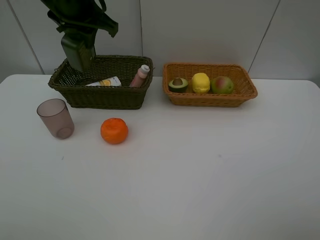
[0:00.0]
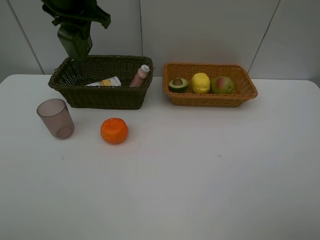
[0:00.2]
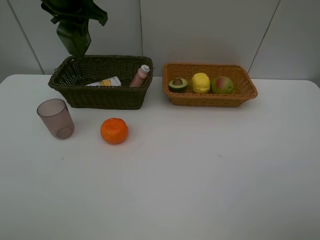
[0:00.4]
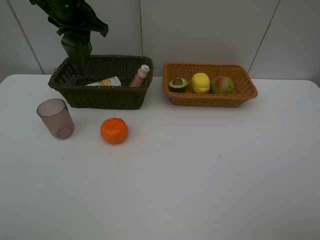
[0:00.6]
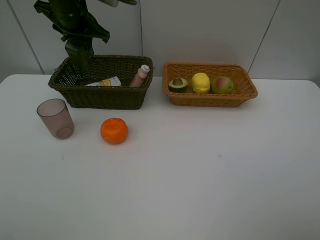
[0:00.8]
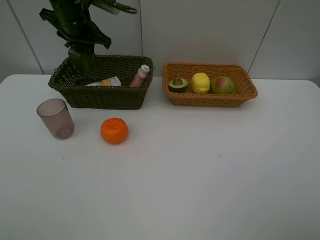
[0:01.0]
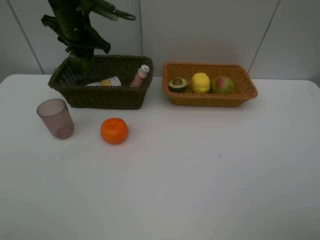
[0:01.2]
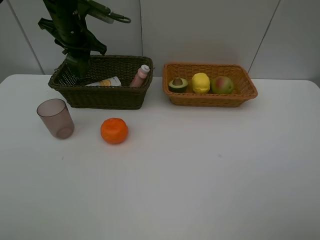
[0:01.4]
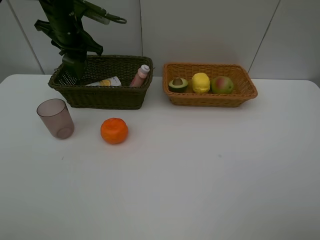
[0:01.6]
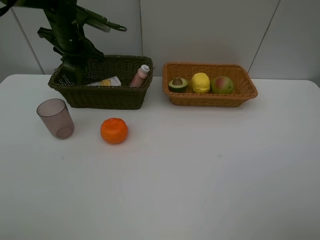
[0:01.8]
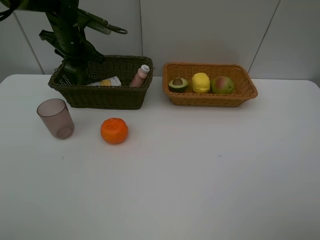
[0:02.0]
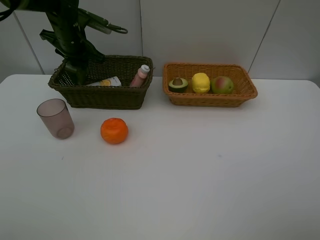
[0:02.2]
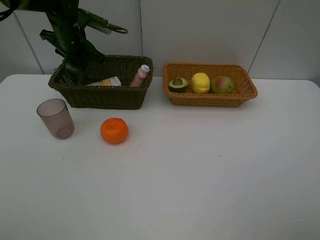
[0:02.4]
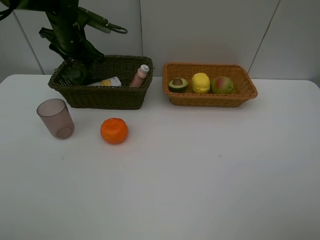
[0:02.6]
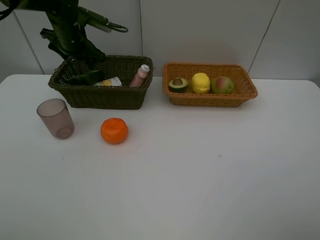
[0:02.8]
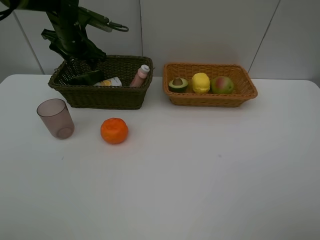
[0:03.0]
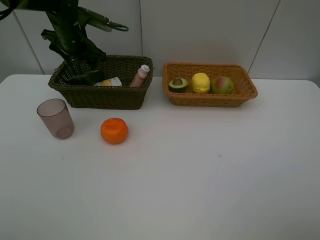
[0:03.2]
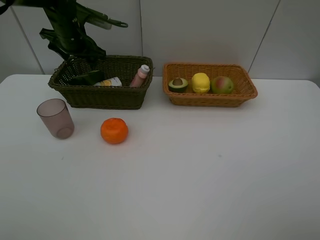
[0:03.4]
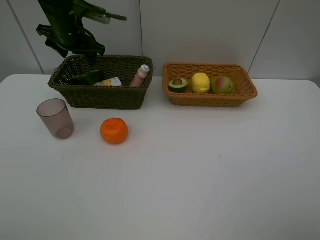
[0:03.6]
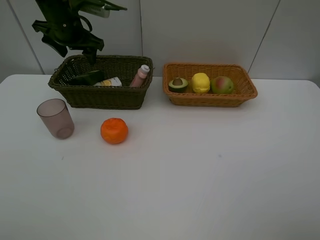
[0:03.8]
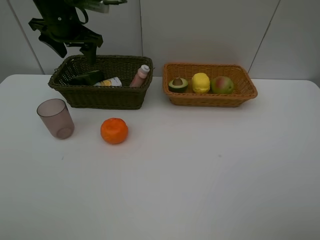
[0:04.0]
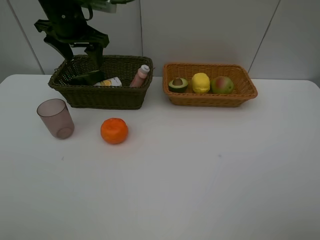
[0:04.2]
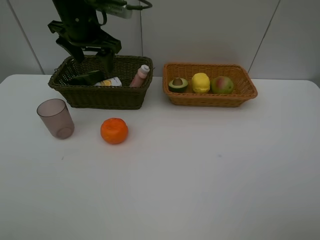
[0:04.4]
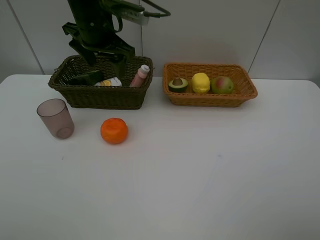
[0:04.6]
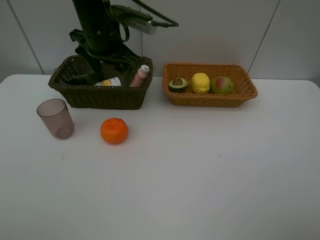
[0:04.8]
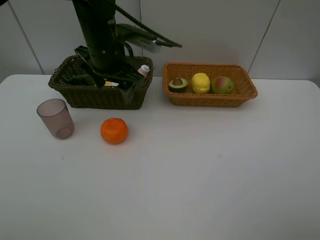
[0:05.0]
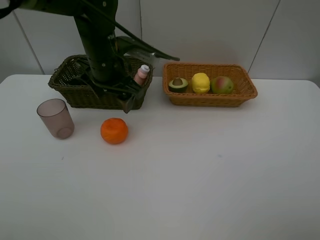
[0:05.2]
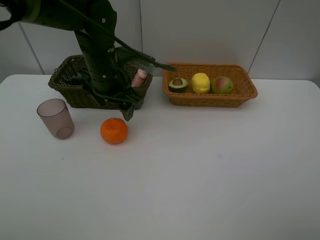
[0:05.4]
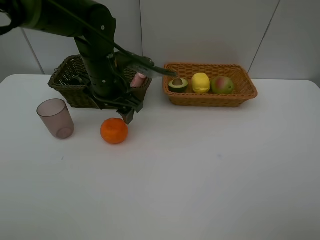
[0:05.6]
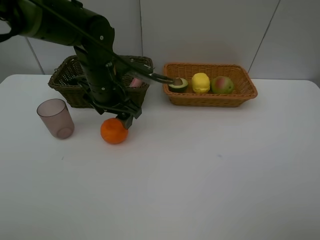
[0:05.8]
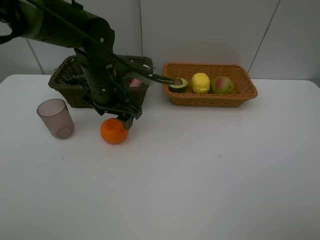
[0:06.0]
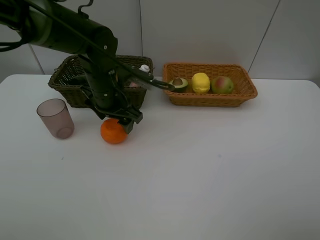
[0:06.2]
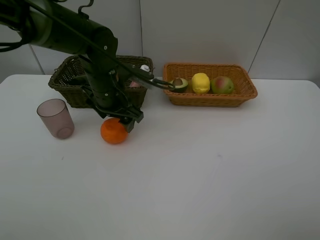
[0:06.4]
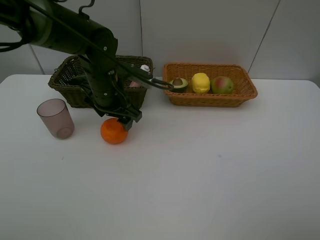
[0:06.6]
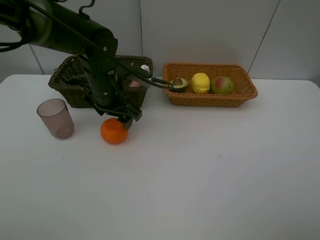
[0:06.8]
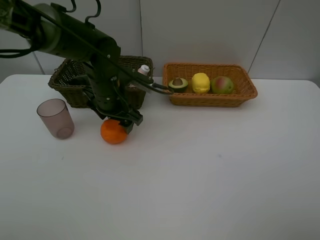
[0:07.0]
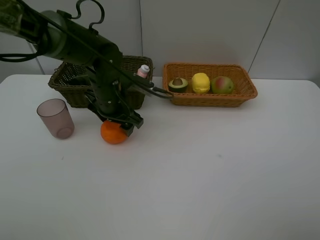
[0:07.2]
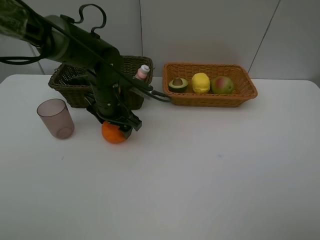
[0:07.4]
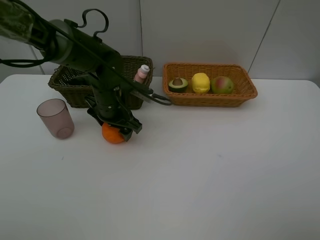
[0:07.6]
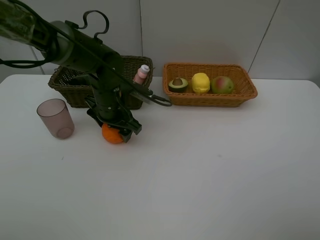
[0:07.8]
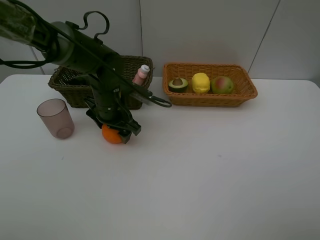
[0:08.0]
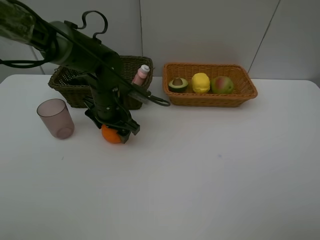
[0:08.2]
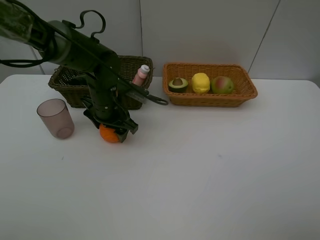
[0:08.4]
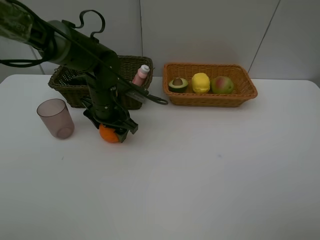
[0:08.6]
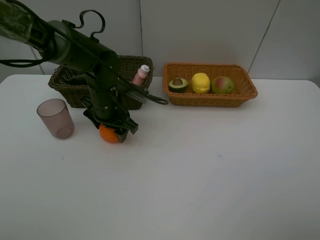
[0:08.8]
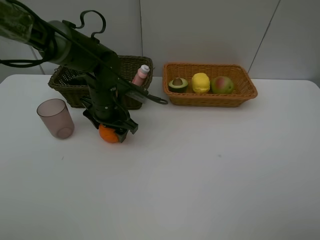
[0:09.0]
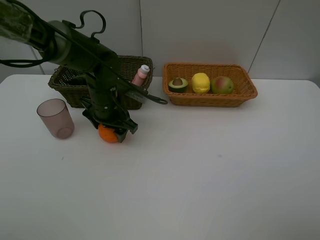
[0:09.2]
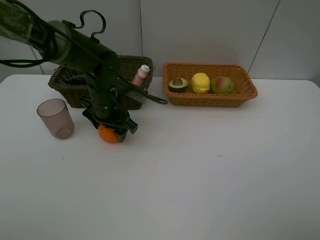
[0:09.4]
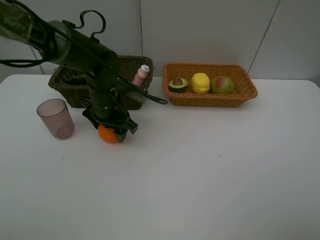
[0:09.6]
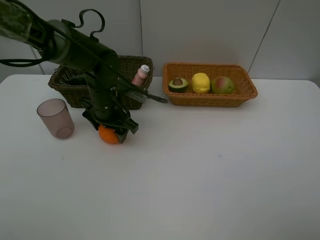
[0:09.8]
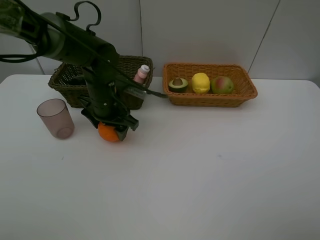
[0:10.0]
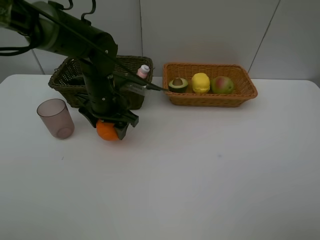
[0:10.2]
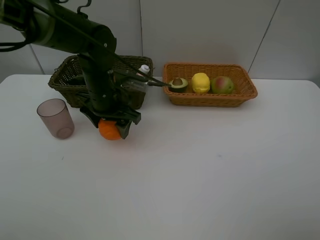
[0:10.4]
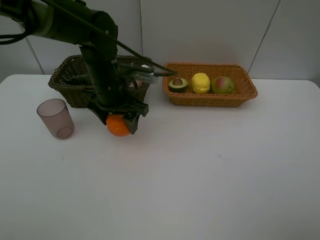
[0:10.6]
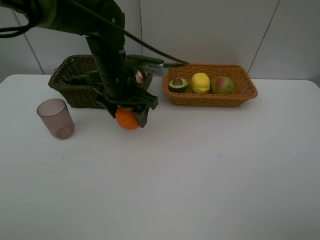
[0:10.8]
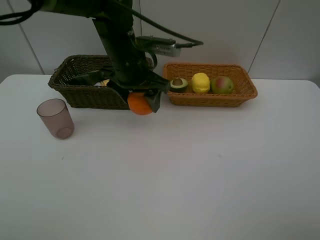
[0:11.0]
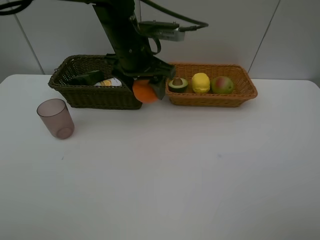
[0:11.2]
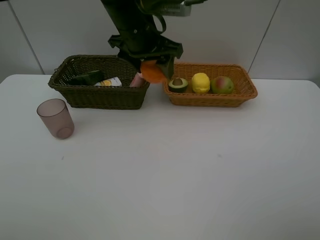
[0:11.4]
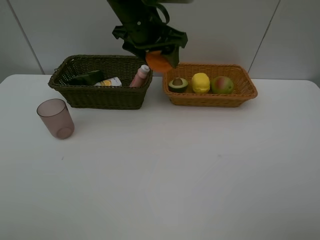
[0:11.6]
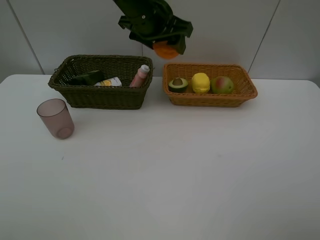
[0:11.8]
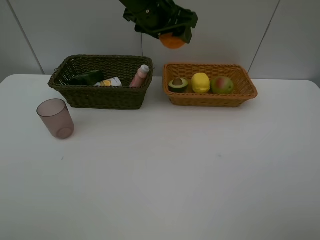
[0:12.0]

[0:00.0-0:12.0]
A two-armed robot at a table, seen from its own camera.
Task of the whole recording: Place multiple objects separately in different baskets.
Step, 0:03.2 to 0:10.0: Pick up the orange with left gripper.
0:00.0 to 0:01.6: The left gripper is displaced downward, forward and to the left by about 15 cm.
0:01.6 to 0:03.0: The left gripper opens its fingers.
0:03.0 to 0:04.4: The left gripper goes approximately 10 cm backward, upward and to the right.
0:04.4 to 0:06.0: The left gripper goes roughly 10 cm downward and backward.
0:06.0 to 0:07.6: The left gripper is displaced downward by about 5 cm.
0:07.6 to 0:09.0: The two grippers keep their place.
0:09.0 to 0:10.4: The grippers stay close to where they were, moving slightly.
0:10.4 to 0:12.0: The left gripper is displaced upward, to the right and forward by approximately 15 cm.

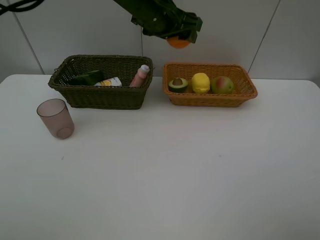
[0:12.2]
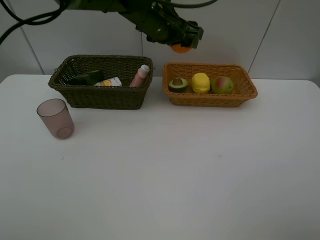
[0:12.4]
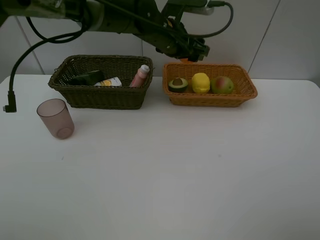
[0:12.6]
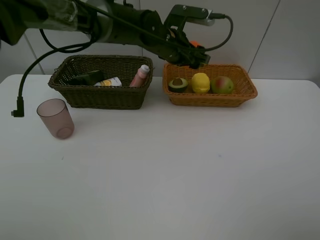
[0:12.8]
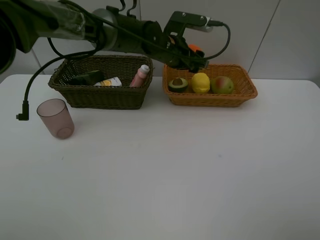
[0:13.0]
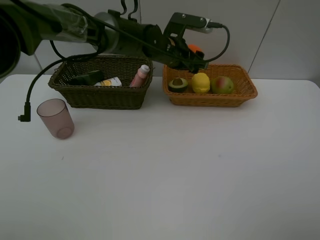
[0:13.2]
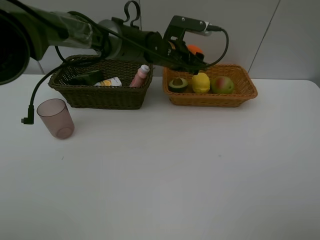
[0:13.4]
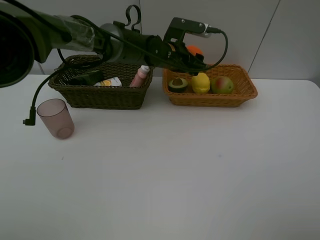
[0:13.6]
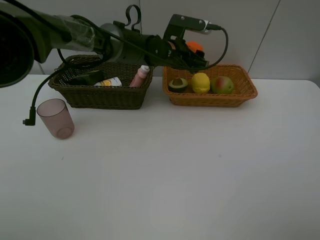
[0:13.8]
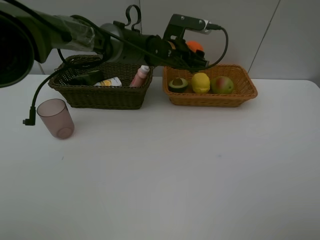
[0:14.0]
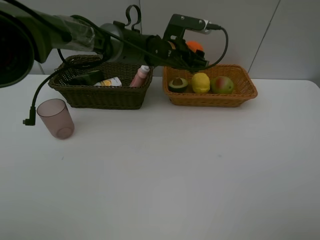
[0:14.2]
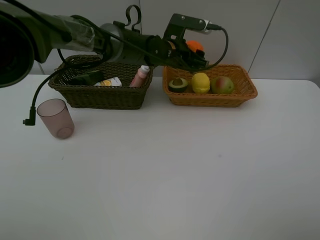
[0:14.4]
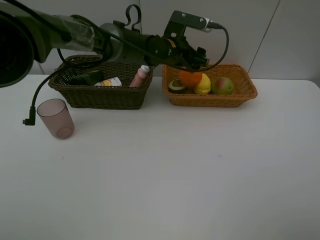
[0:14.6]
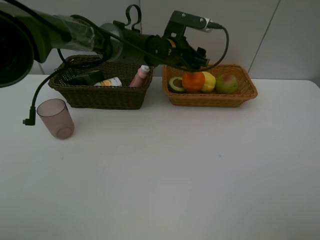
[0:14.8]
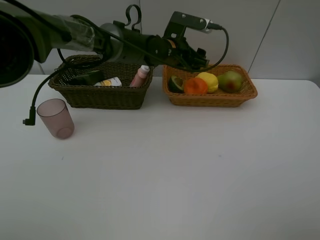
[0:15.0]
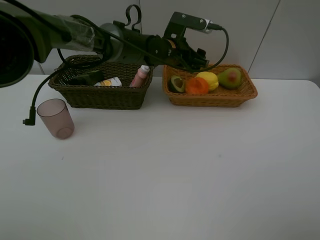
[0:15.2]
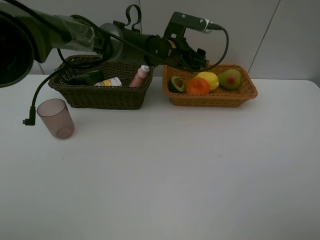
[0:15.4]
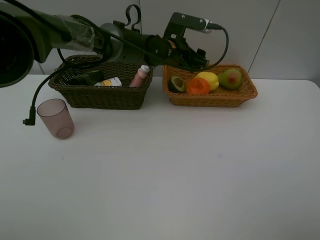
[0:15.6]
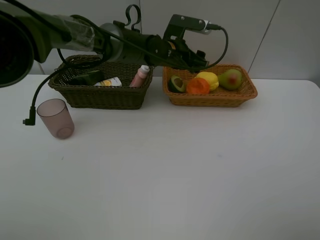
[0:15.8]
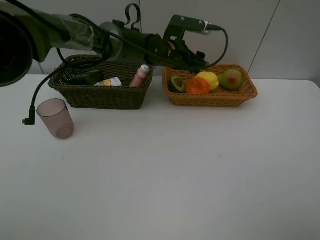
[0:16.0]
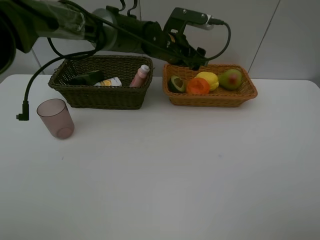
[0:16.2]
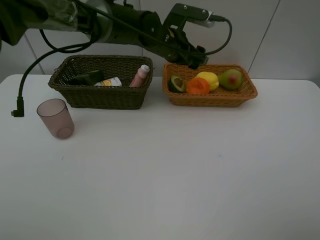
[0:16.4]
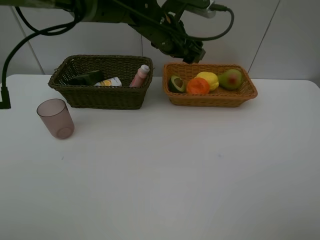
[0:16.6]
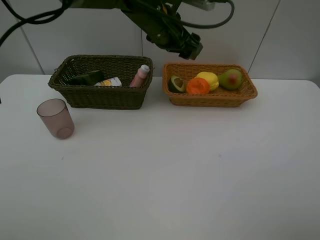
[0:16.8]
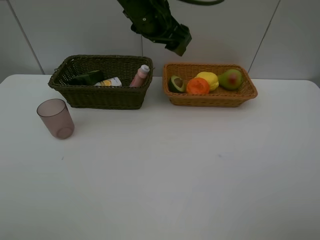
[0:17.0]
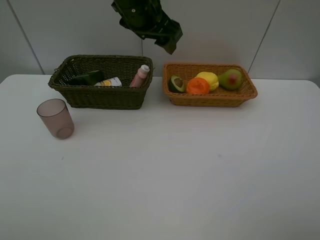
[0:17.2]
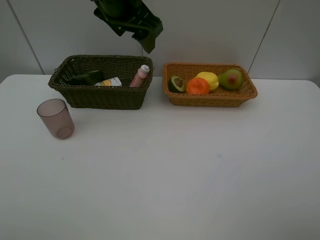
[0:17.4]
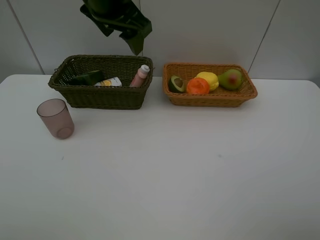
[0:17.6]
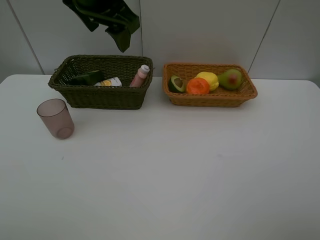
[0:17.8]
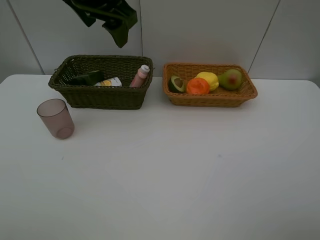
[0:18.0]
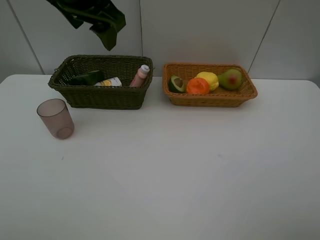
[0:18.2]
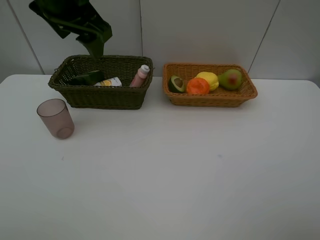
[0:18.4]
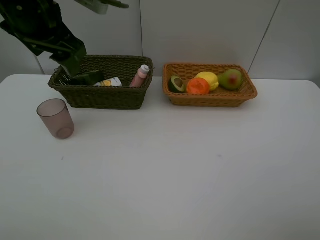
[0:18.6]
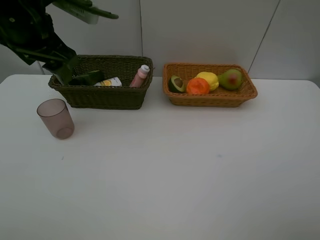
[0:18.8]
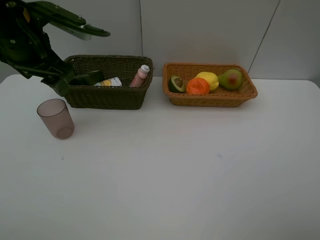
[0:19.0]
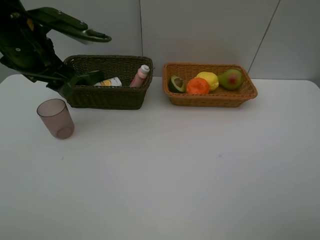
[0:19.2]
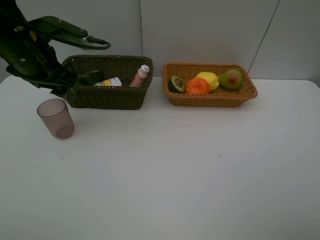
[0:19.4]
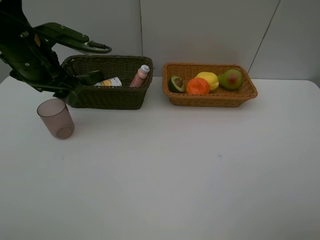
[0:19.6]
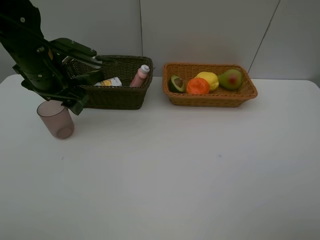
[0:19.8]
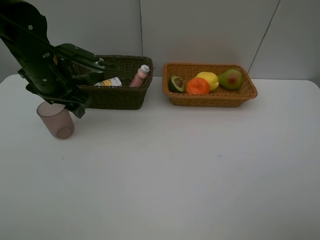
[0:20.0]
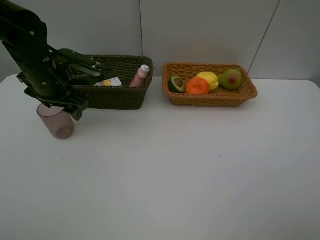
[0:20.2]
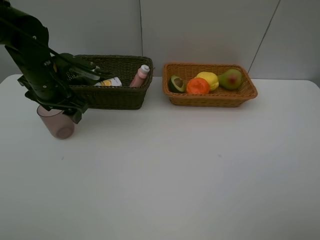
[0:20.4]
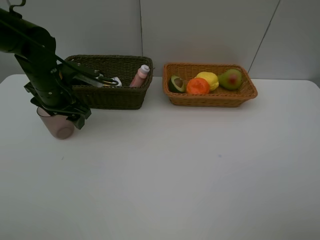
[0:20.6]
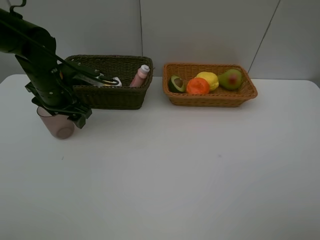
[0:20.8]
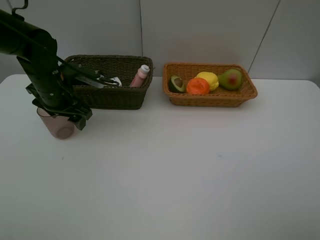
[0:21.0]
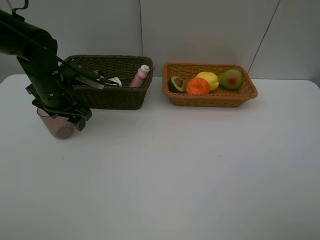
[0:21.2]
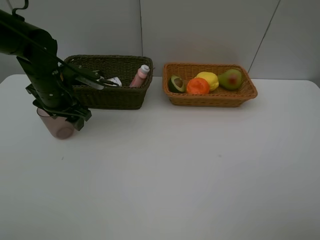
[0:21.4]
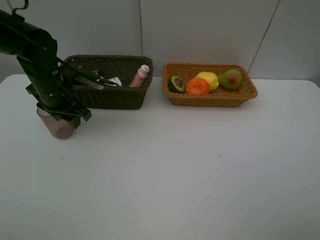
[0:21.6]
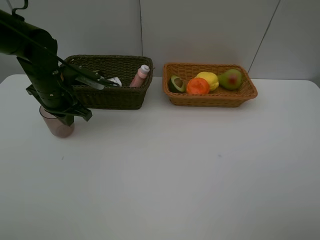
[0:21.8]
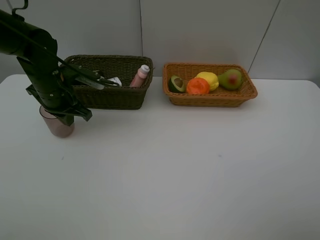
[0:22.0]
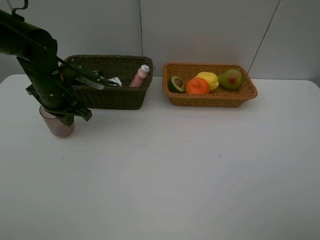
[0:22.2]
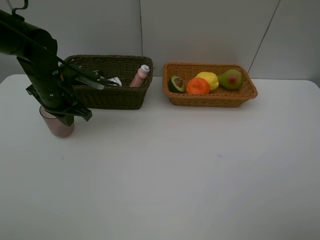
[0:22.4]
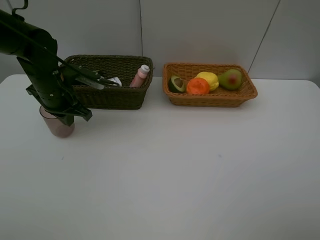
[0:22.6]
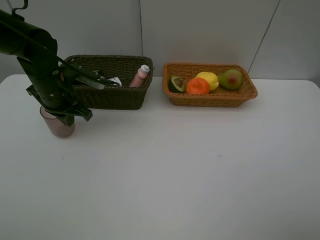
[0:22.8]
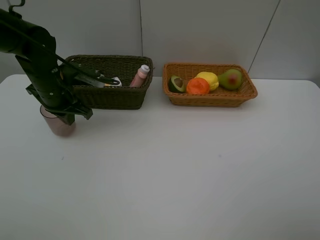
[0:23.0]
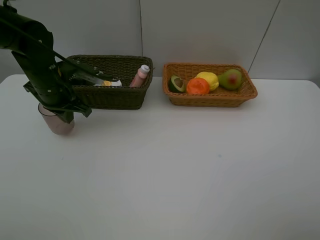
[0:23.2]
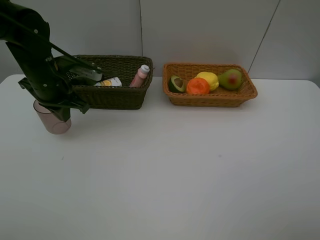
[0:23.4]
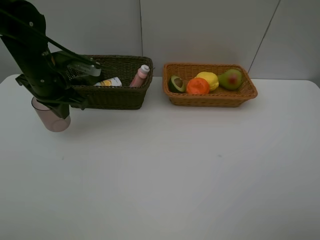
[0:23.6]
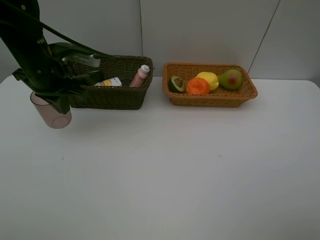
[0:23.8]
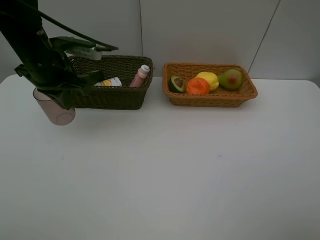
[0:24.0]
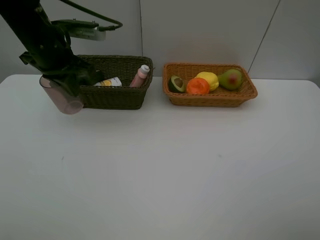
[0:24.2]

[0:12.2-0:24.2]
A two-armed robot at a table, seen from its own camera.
Task of the whole recording: Place multiple objects separately in different baskets.
Step, 0:12.2 to 0:15.0: Place the orange in the light basket with left gripper.
Step, 0:15.2 to 0:23.2: Pick up the red cup with left gripper.
0:12.2 to 0:13.8: The left gripper is displaced downward by some 10 cm.
0:13.8 to 0:15.2: Both grippers stay about where they are.
0:15.2 to 0:16.6: The left gripper travels upward by some 5 cm.
0:16.6 to 0:18.2: The left gripper travels to the left, upward and backward by approximately 20 cm.
0:18.2 to 0:19.8: The left gripper travels downward and to the left by approximately 15 cm.
0:19.8 to 0:21.2: The left gripper travels downward by about 5 cm.
0:22.6 to 0:24.2: The left gripper travels upward by approximately 10 cm.
